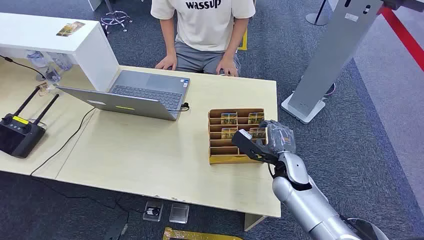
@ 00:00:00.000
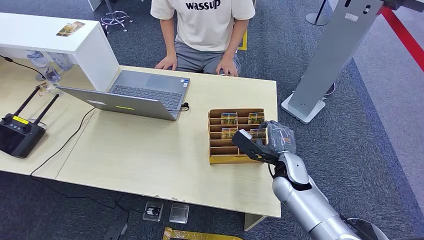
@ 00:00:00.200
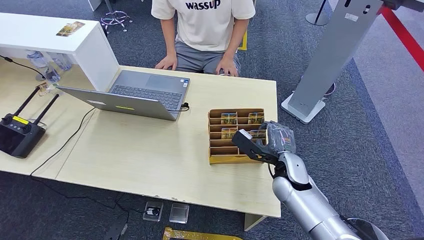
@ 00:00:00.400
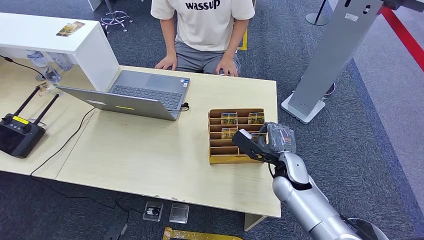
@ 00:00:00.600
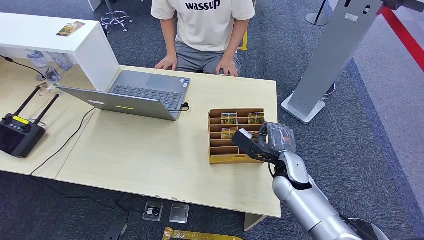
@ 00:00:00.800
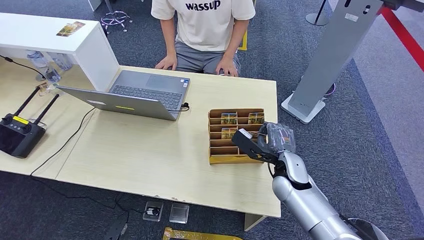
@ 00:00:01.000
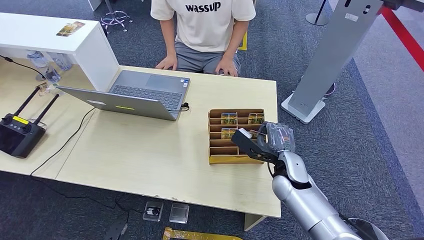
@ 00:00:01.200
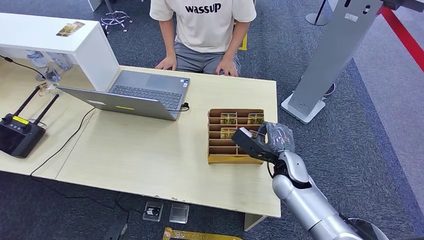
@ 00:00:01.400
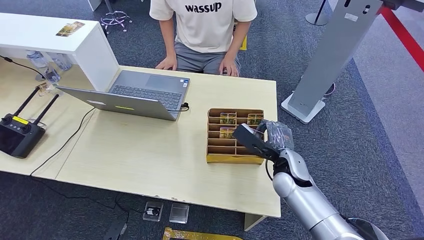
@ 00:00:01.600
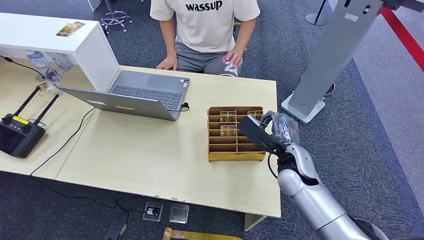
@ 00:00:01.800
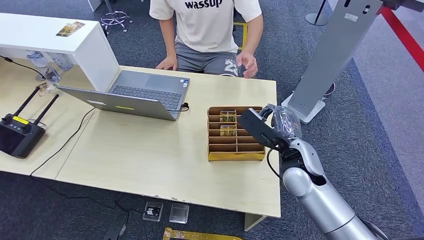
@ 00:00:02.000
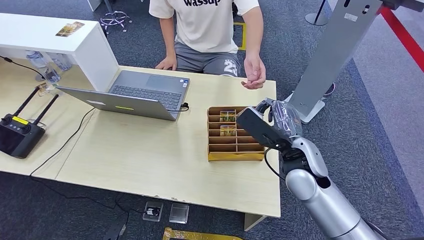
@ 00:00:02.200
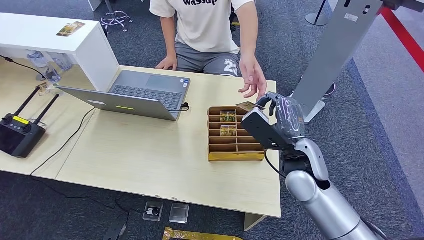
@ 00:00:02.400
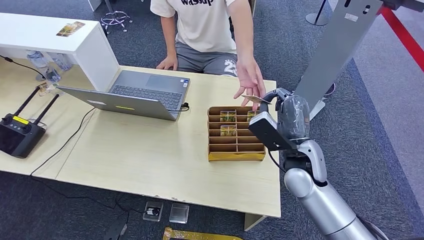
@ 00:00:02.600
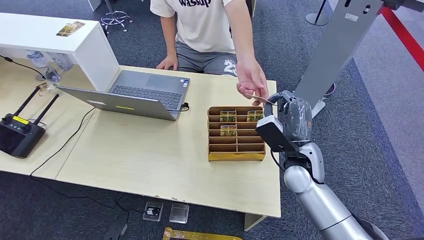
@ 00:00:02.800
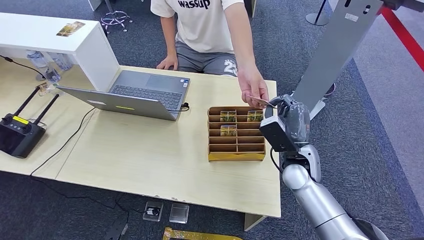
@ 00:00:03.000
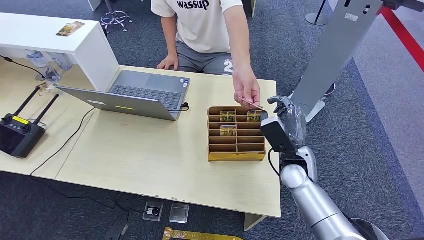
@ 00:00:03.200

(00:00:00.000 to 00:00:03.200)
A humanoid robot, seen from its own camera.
Step, 00:00:00.000 - 00:00:01.800: Pick up the key card from the card box.
Step, 00:00:02.400 - 00:00:03.200: Hand the key card to the target.
00:00:01.600 - 00:00:03.200: The right hand reaches roughly 10 cm upward, then returns.
